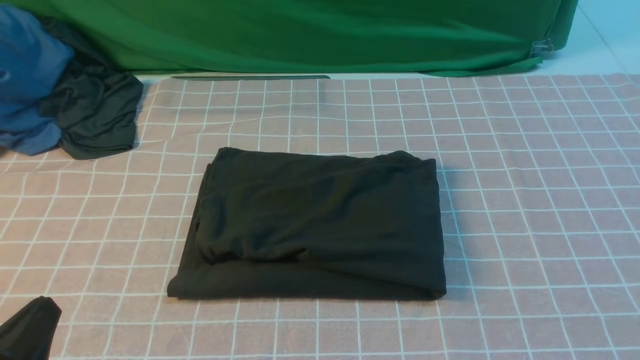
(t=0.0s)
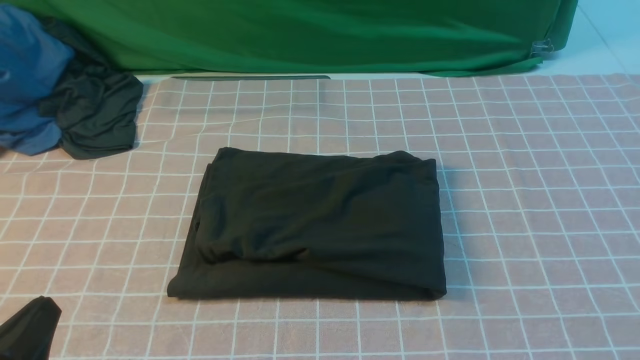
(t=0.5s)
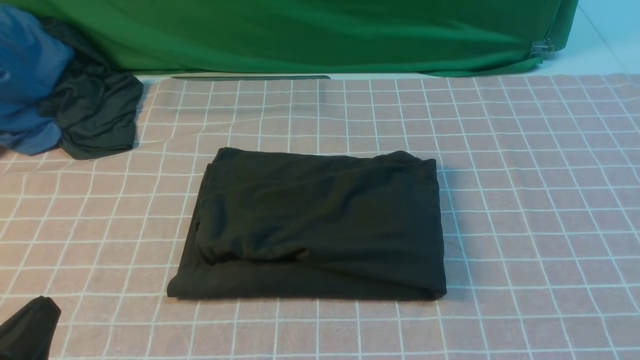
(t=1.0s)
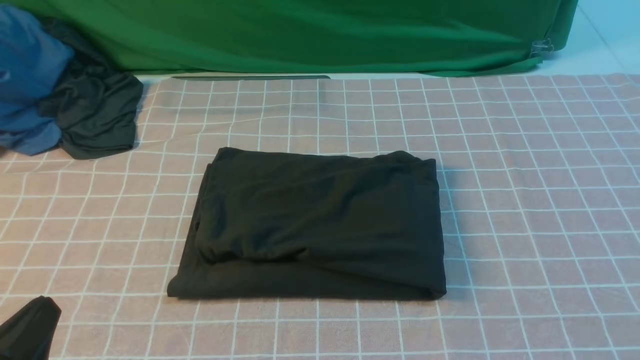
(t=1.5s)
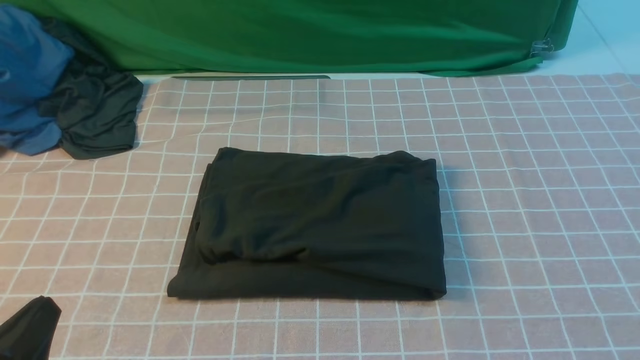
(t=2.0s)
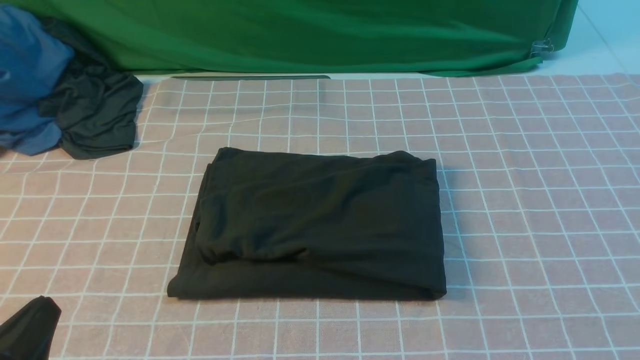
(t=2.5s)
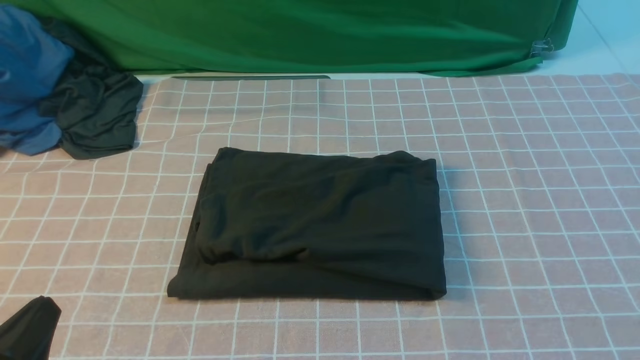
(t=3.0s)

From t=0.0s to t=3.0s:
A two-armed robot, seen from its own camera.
From t=1.5s to t=3.0s: Both grippers stay about where they are.
